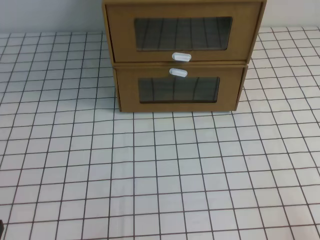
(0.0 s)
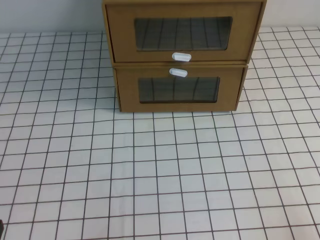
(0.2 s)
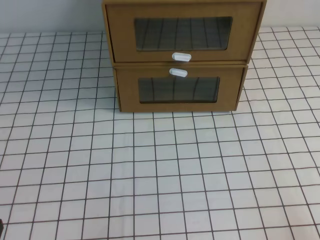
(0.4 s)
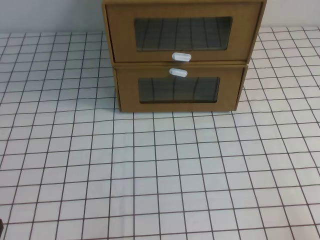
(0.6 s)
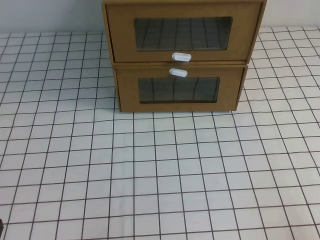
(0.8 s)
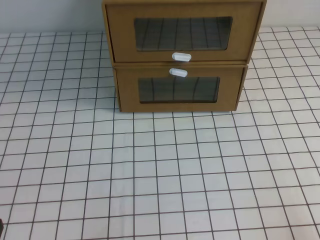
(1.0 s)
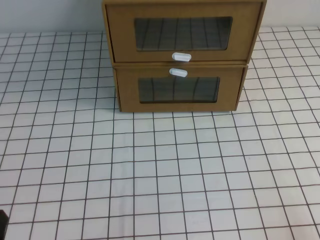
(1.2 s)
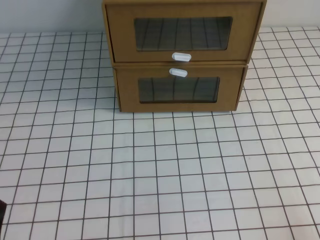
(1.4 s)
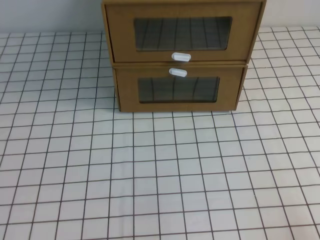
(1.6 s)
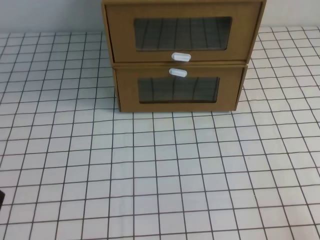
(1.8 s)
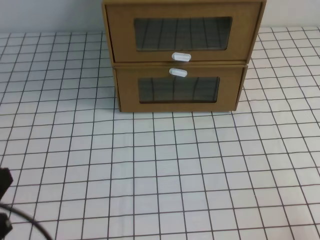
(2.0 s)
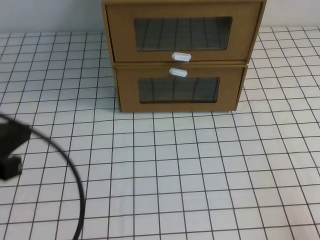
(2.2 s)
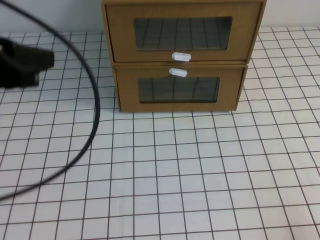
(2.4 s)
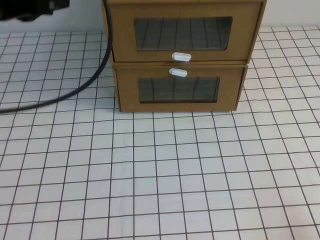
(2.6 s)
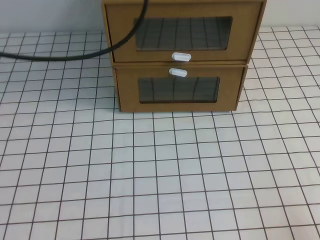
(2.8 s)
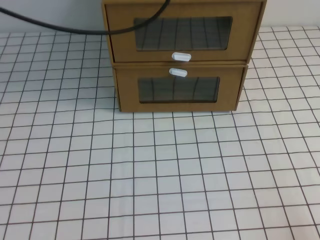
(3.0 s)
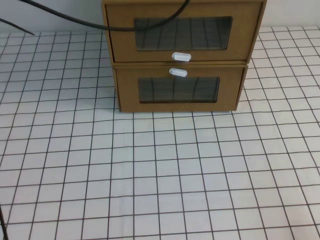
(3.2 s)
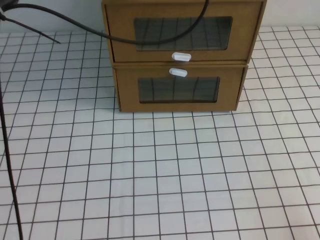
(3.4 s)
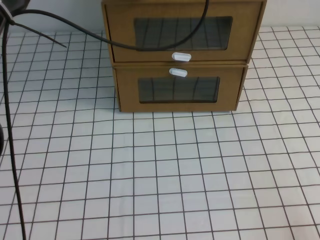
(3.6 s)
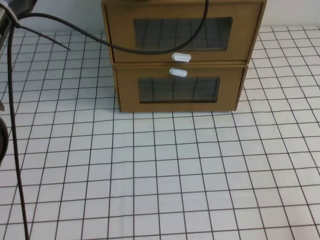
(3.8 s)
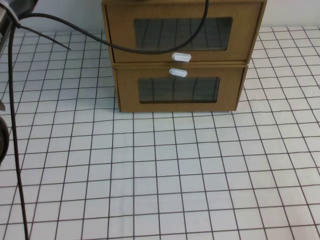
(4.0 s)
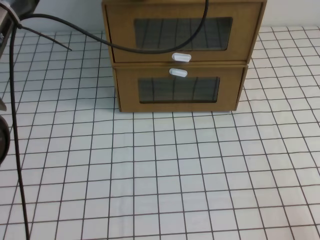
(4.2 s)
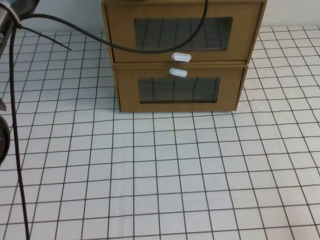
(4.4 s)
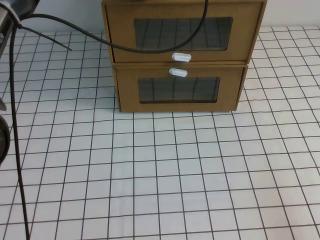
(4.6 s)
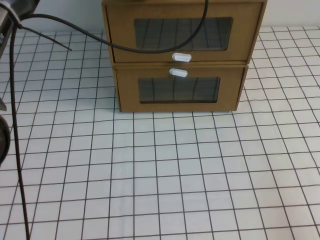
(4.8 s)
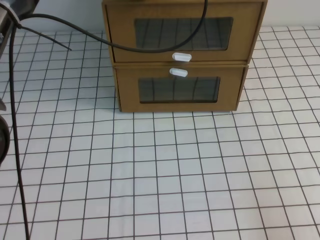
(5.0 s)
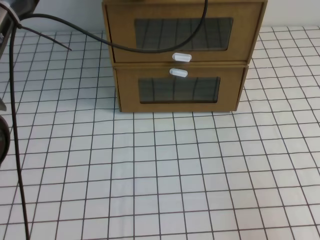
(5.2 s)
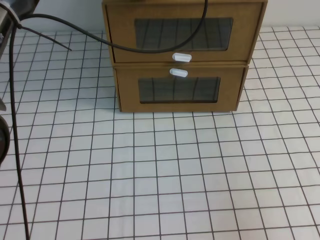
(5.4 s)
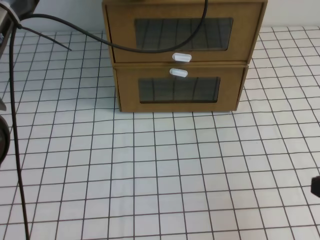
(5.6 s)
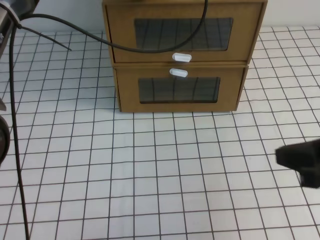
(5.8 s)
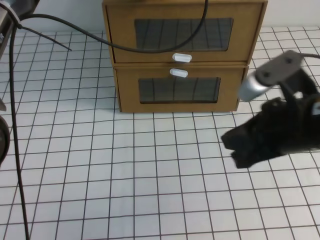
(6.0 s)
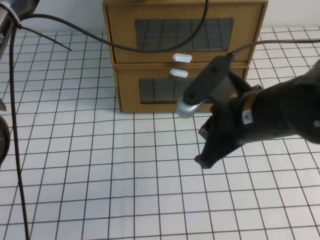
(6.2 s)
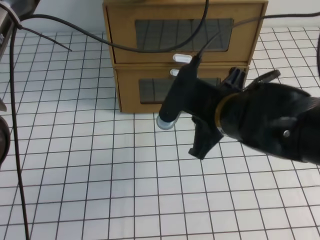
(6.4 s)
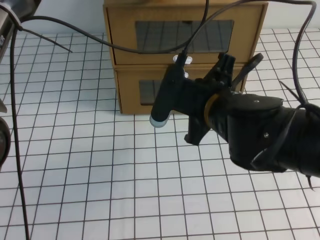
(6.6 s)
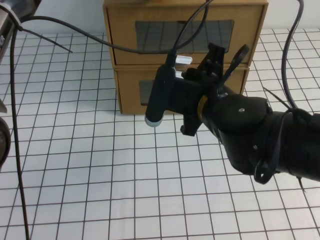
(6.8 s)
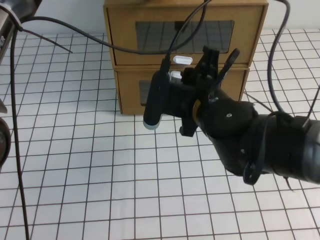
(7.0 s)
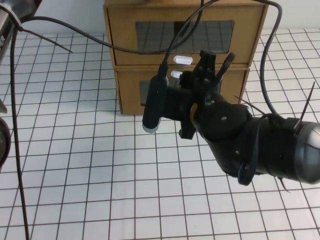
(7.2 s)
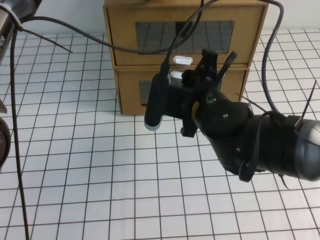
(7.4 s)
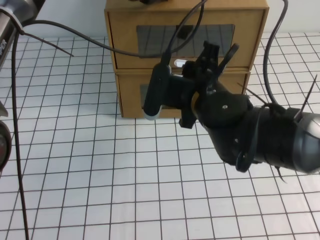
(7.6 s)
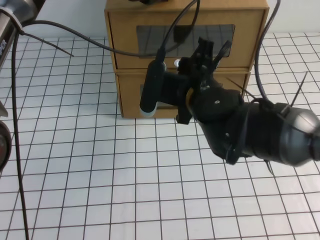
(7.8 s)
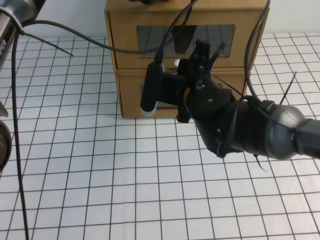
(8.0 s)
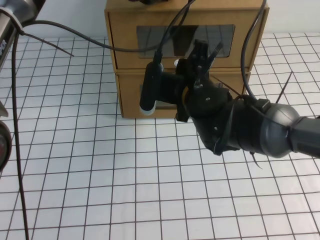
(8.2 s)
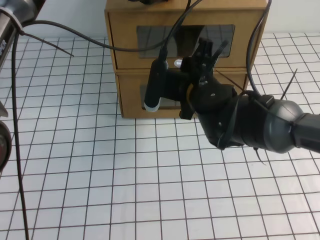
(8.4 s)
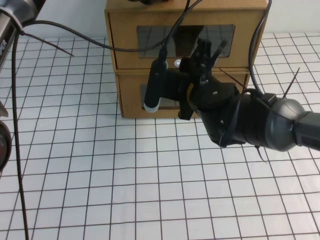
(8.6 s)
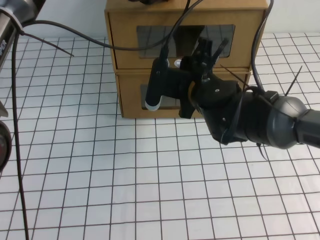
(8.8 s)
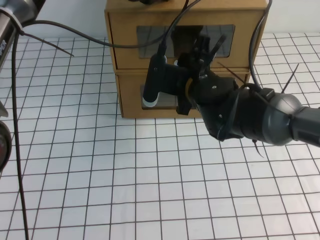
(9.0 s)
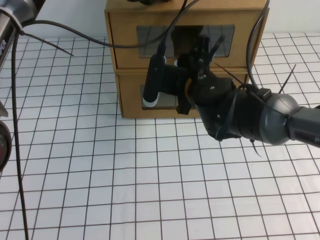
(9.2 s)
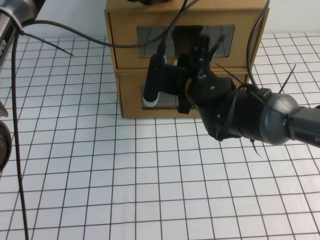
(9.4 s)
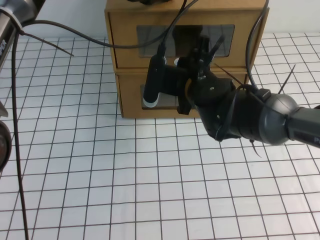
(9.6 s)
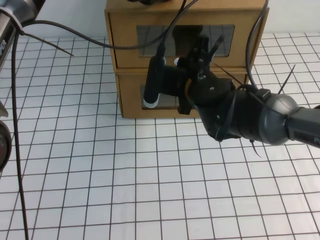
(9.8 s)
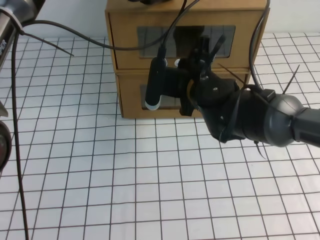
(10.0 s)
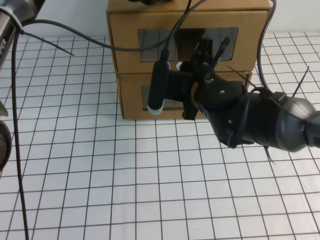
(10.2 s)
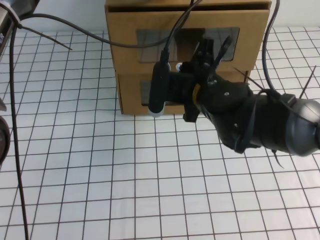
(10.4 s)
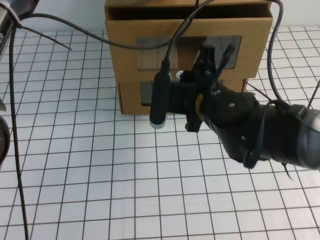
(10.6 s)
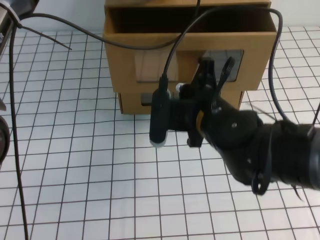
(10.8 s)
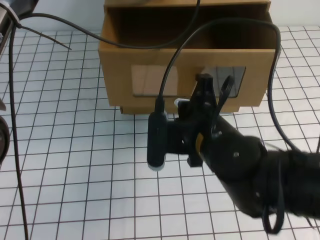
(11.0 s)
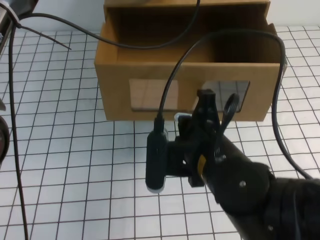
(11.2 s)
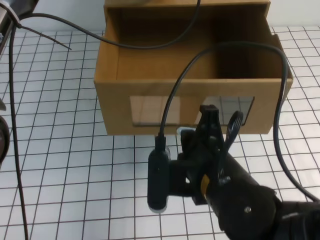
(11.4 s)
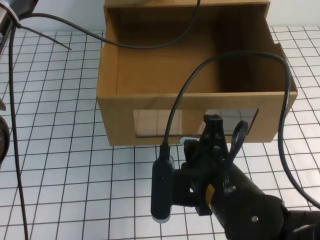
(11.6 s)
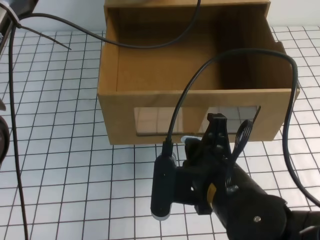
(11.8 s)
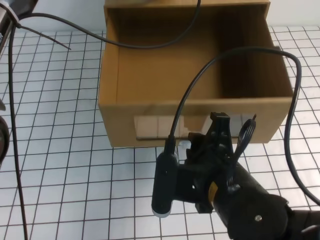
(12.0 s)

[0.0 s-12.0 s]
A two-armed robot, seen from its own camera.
Task of the whole recording: open the shoebox on the white tablecloth.
1.6 to 3.0 s: The left gripper moves forward, upward and to the right, some 40 cm.
3.0 to 4.4 s: The left gripper goes some 15 cm forward, downward and to the right.
4.4 to 6.0 s: The right gripper goes some 25 cm forward, upward and to the left.
6.0 to 7.6 s: The right gripper travels to the left and forward by some 15 cm, and opens.
7.6 to 9.0 s: The right gripper heads forward, covering about 5 cm.
9.0 to 10.4 s: The right gripper closes up.
10.4 to 12.0 s: The right gripper heads backward, covering some 15 cm, and opens.

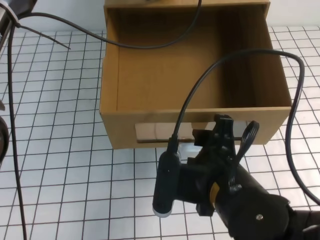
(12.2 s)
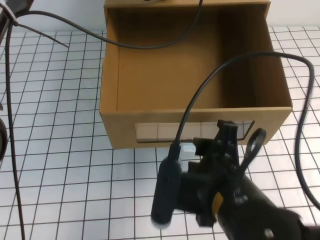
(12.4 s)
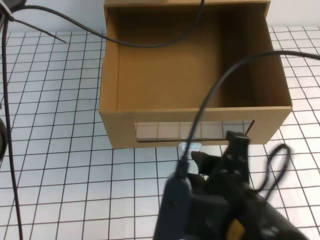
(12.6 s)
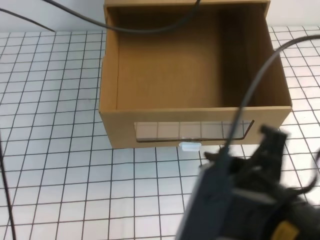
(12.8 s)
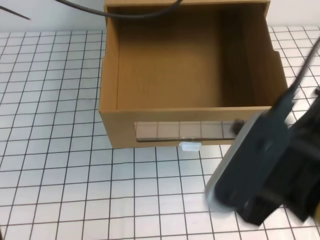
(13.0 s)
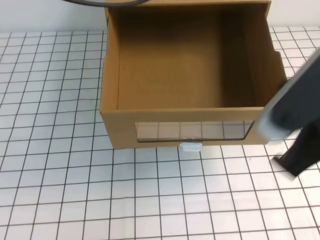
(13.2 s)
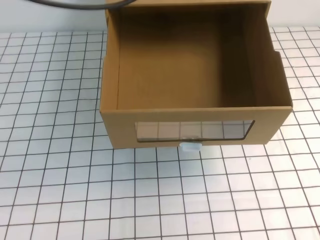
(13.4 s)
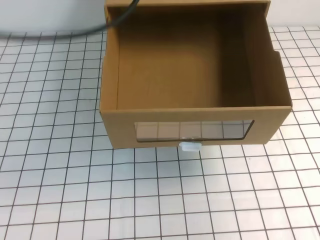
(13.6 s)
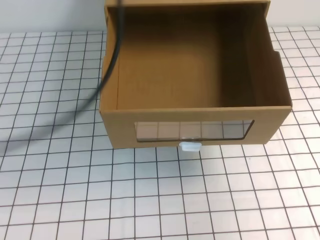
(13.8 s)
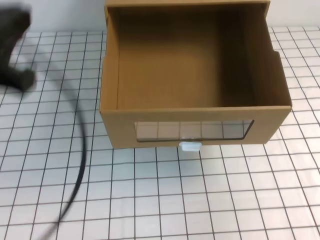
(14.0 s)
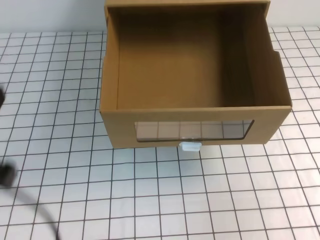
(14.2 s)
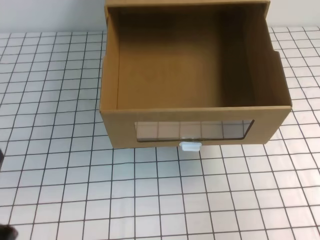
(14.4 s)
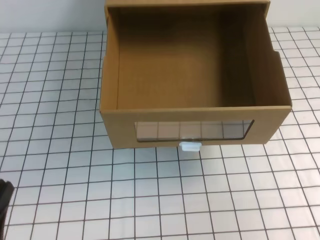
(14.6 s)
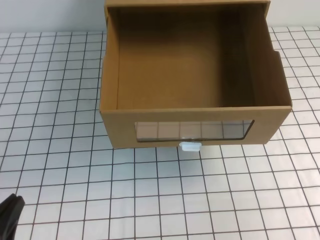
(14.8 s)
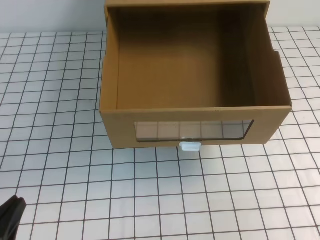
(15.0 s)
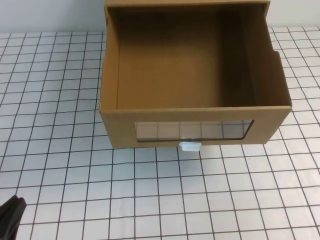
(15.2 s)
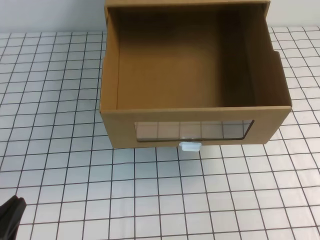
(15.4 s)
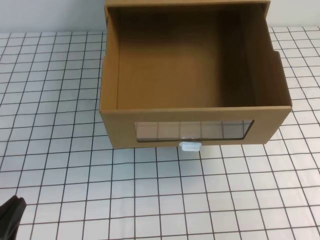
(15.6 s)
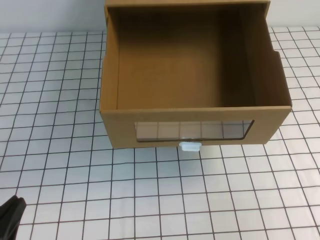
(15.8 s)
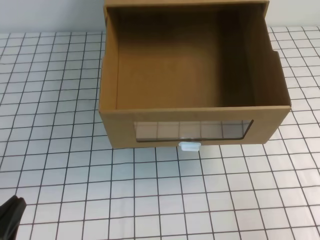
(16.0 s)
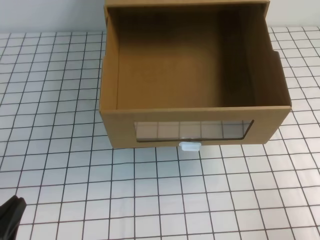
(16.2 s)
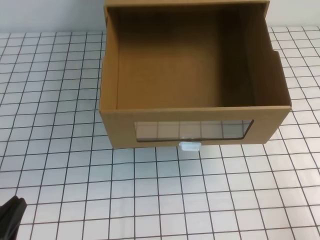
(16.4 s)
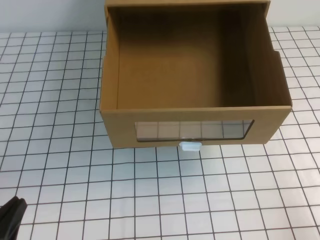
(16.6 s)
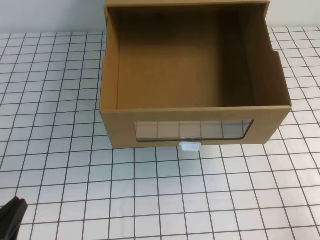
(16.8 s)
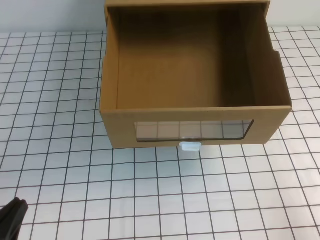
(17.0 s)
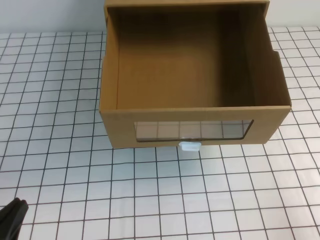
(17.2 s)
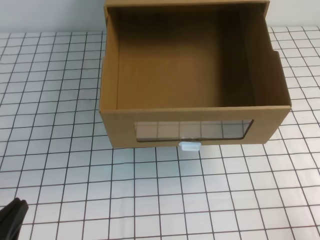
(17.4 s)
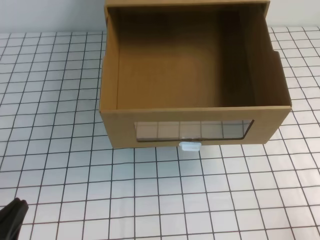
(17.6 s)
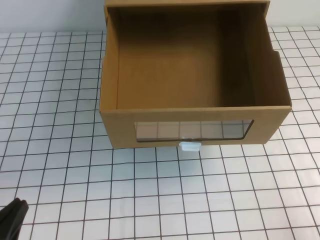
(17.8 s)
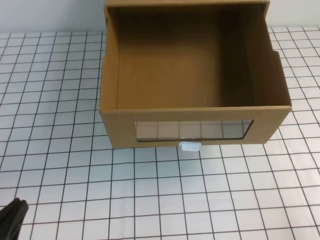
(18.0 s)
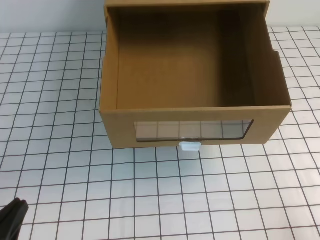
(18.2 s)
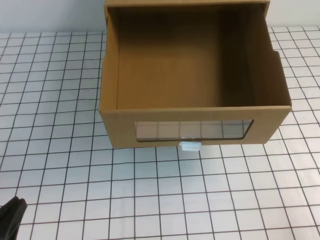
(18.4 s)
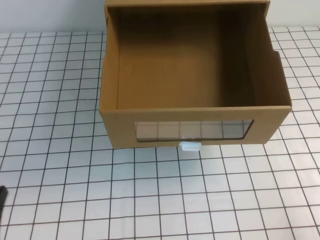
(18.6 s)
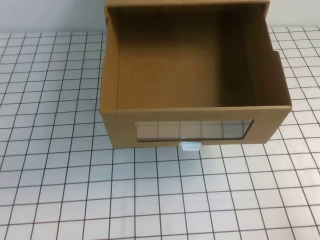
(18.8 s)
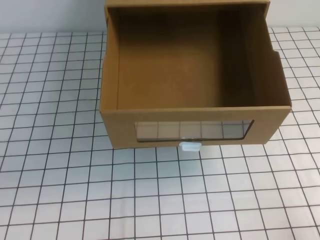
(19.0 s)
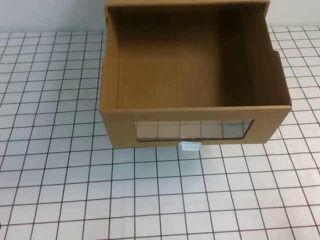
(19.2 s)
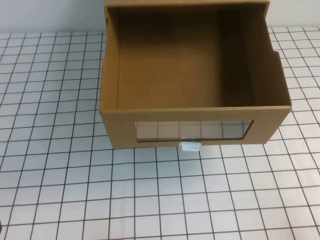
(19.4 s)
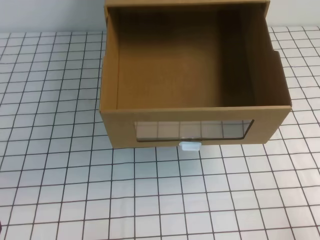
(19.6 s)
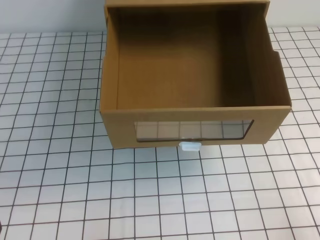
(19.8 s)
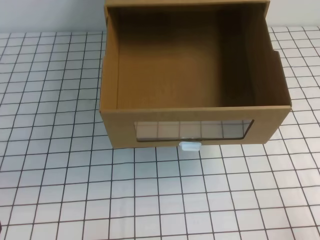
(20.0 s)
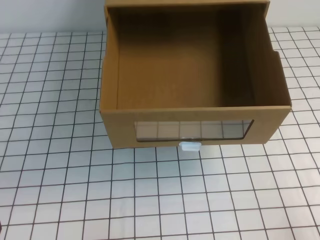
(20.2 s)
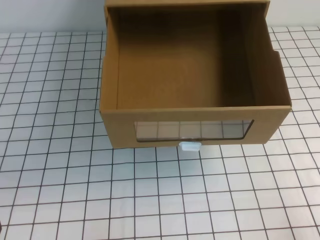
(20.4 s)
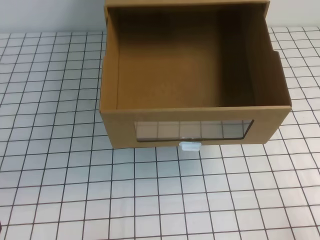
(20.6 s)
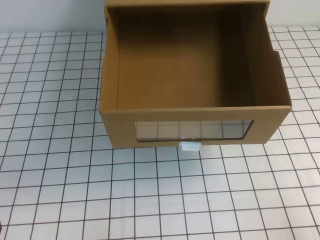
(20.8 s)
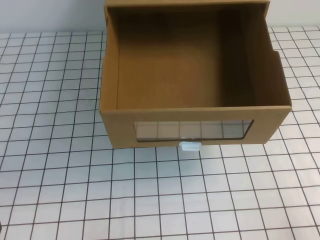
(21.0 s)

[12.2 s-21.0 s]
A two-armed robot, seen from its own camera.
Task of the whole recording: open the shoebox on the white tablecloth.
Step, 12.2 to 21.0 s: Open the shoe box.
12.2 to 13.6 s: The left gripper goes about 25 cm backward, upward and to the left. The right gripper heads to the right and upward, covering about 25 cm, and closes its fingers.
13.6 to 15.2 s: The left gripper travels downward and backward by approximately 40 cm; the right gripper heads downward, covering roughly 10 cm.
15.2 to 16.6 s: The right gripper moves downward, roughly 10 cm.
18.0 to 19.6 s: The grippers stay close to where they were, moving slightly.
19.6 to 21.0 s: Neither gripper changes place.

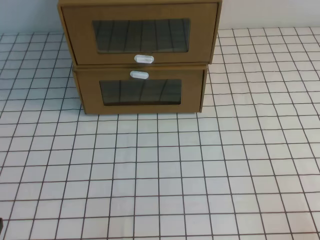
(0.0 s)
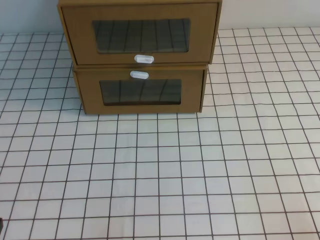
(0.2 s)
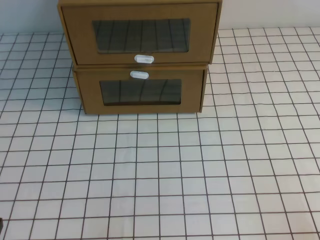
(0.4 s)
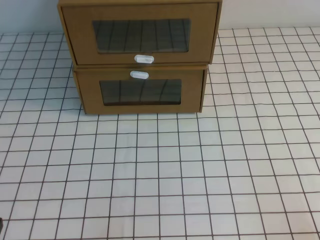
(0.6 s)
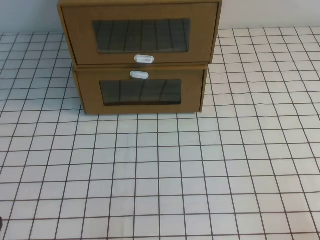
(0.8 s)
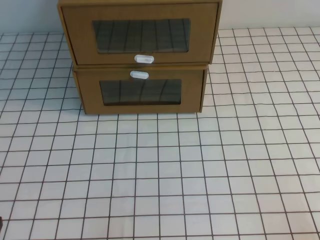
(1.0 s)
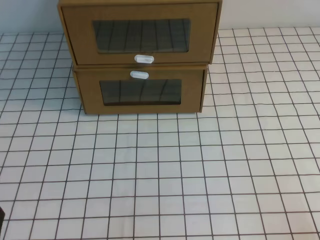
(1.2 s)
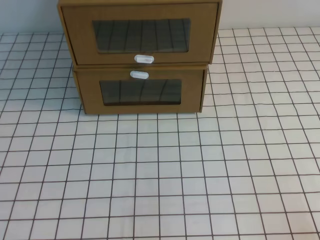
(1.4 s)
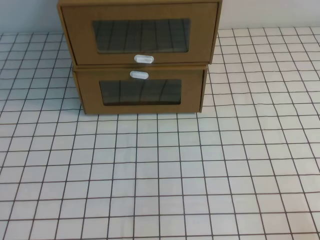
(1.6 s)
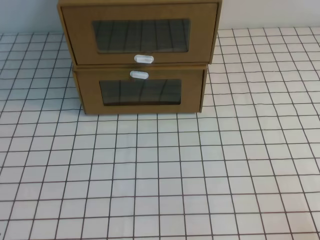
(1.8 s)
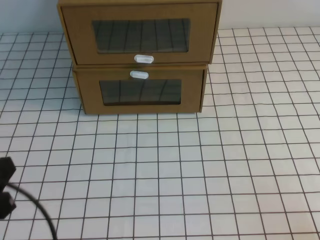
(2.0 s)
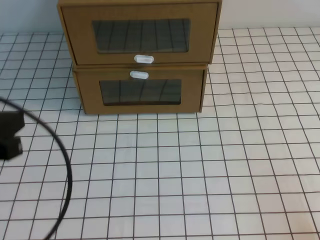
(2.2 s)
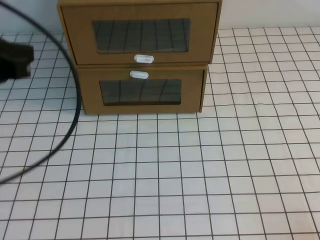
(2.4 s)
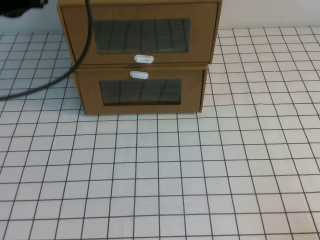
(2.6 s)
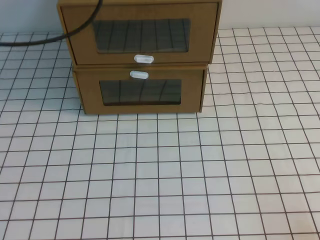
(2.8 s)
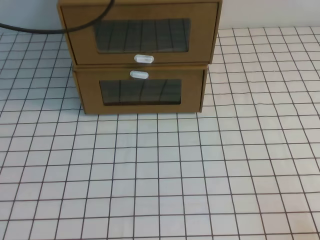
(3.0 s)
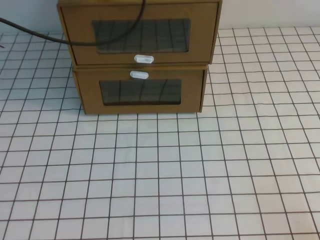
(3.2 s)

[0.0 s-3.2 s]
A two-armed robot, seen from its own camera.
Task of the whole recording: open the shoebox on the white tablecloth.
1.6 to 3.2 s: The left gripper goes approximately 40 cm forward and upward.
